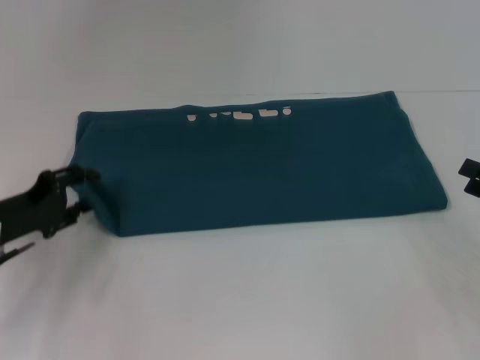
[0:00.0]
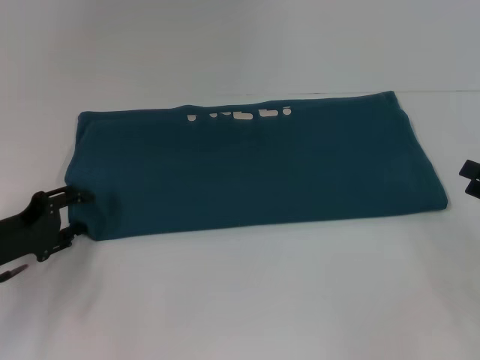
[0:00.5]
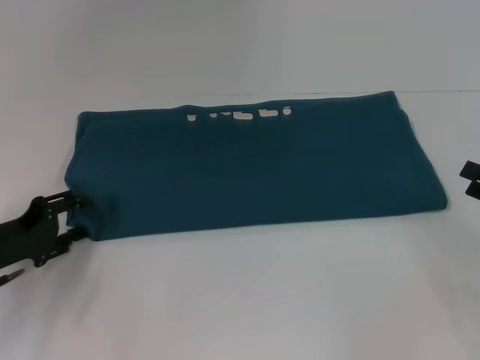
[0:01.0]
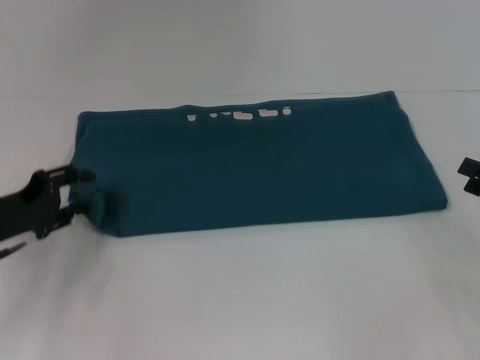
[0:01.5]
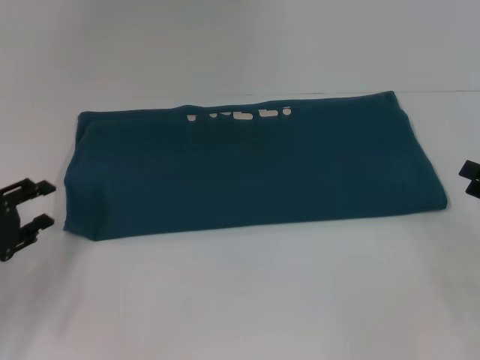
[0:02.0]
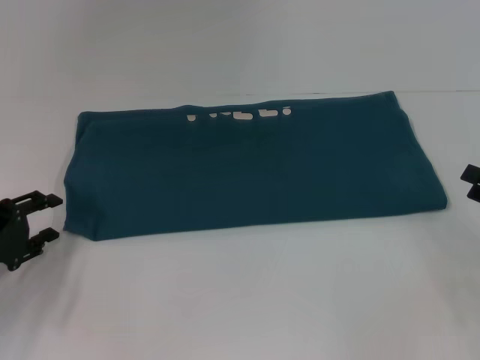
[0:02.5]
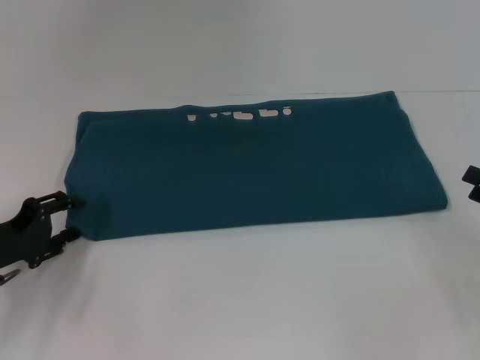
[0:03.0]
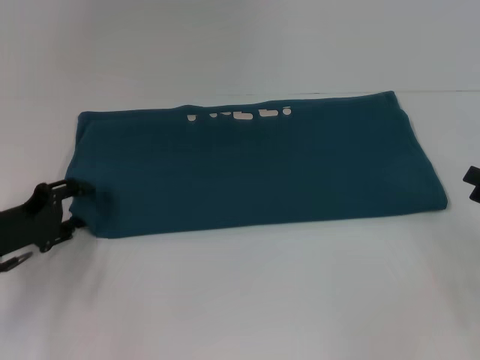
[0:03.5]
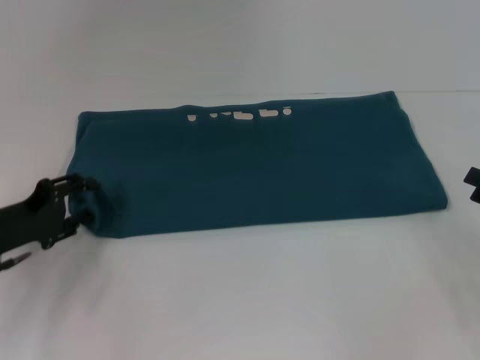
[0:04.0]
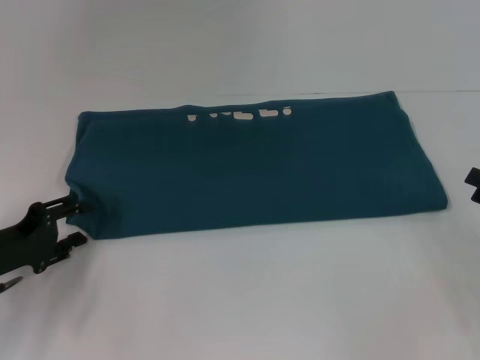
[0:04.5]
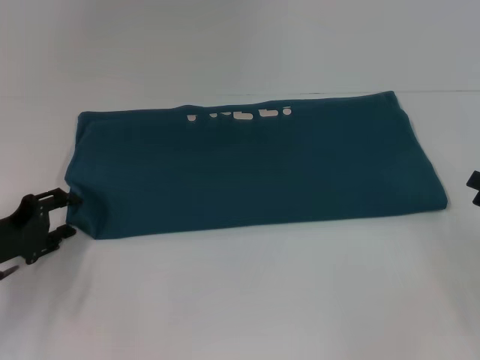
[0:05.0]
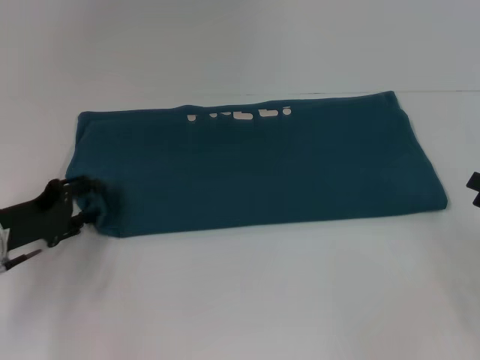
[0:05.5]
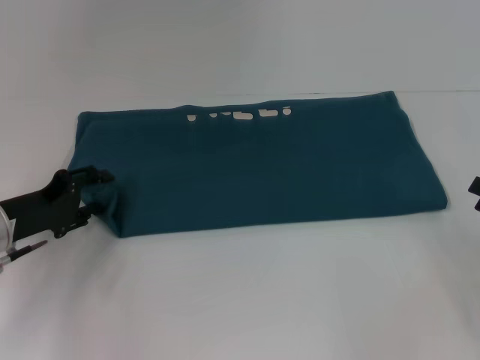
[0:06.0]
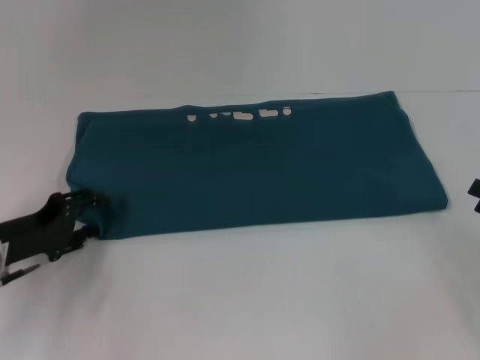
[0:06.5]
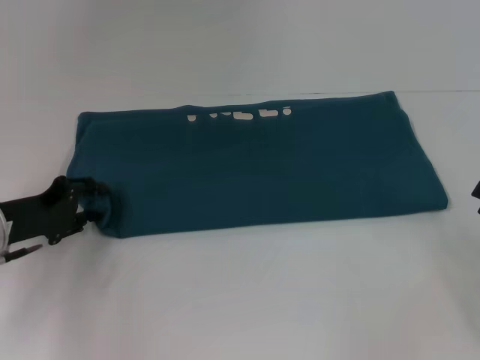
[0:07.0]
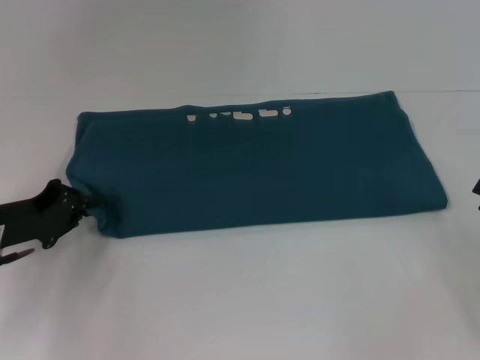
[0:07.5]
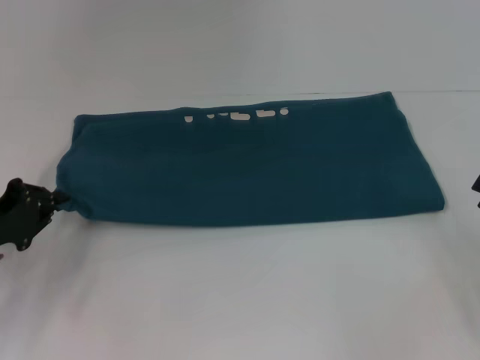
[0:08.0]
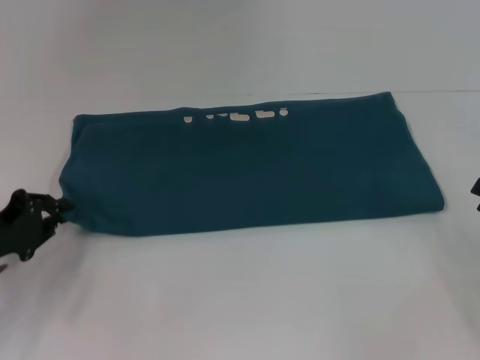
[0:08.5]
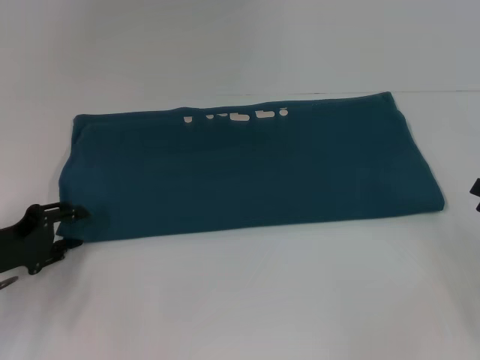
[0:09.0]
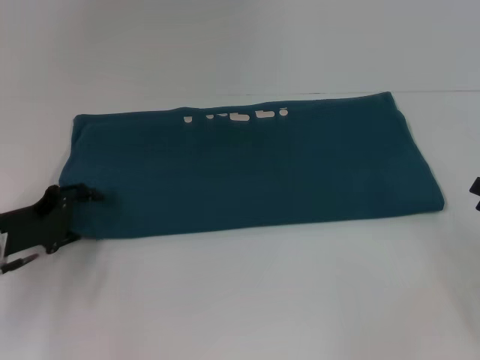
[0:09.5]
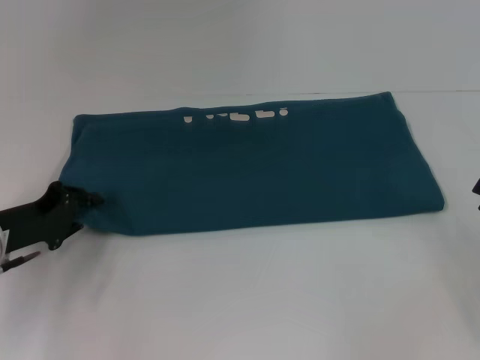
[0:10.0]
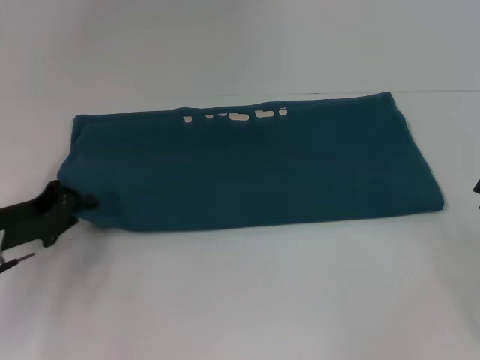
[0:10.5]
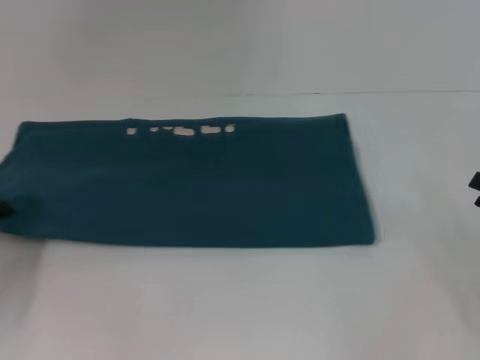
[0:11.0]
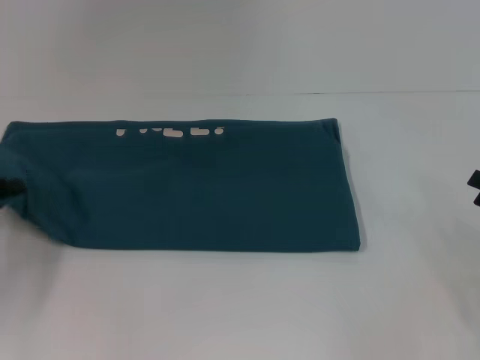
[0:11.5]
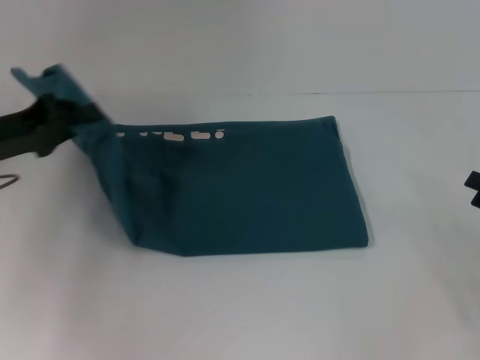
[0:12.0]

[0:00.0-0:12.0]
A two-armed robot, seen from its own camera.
0:00.0 to 0:02.0: The left gripper changes place by some 5 cm.
0:04.0 to 0:06.0: The grippers move only a little.
0:06.0 to 0:08.0: The left gripper closes.
0:08.0 to 0:10.0: The left gripper opens up.
0:10.0 to 0:12.0: The left gripper goes approximately 10 cm upward, and closes its fingers.

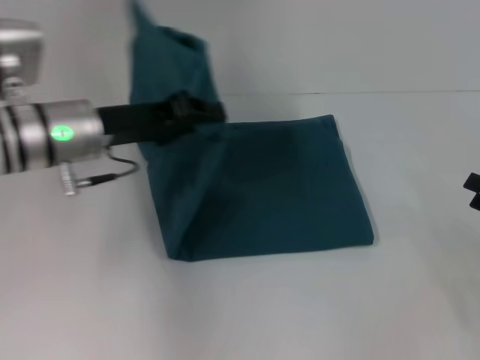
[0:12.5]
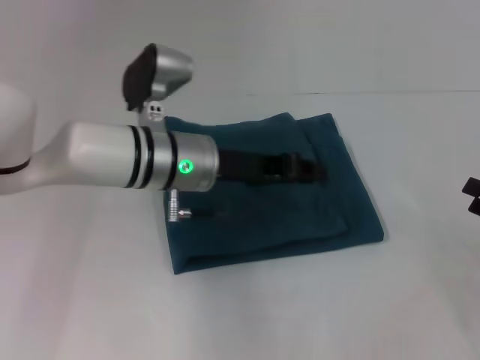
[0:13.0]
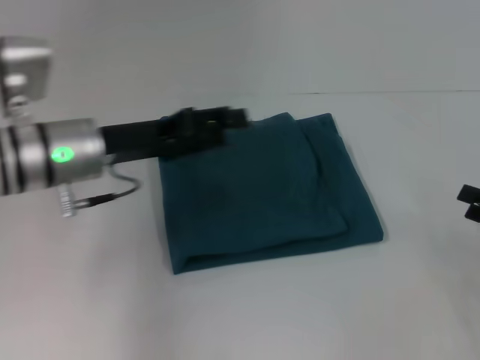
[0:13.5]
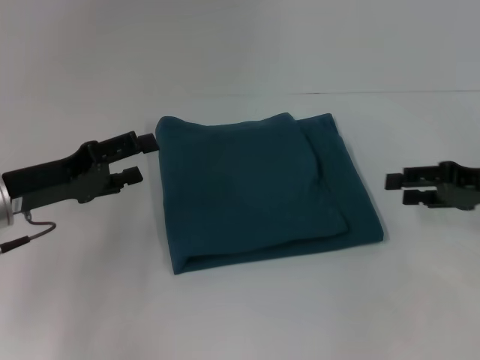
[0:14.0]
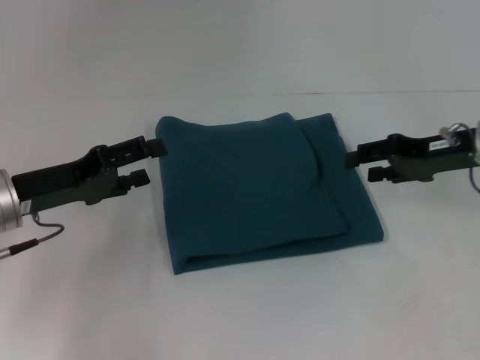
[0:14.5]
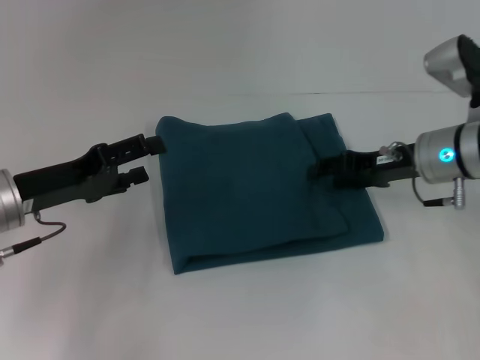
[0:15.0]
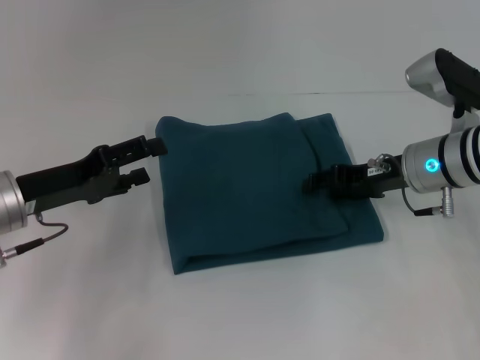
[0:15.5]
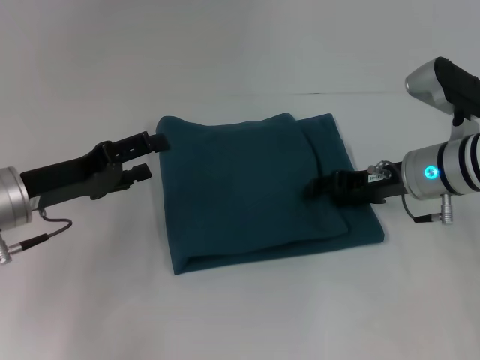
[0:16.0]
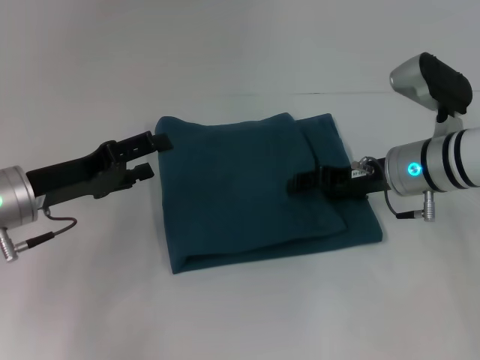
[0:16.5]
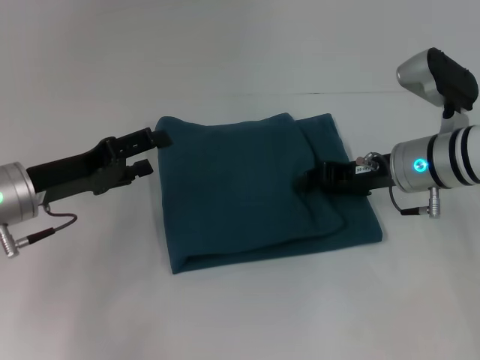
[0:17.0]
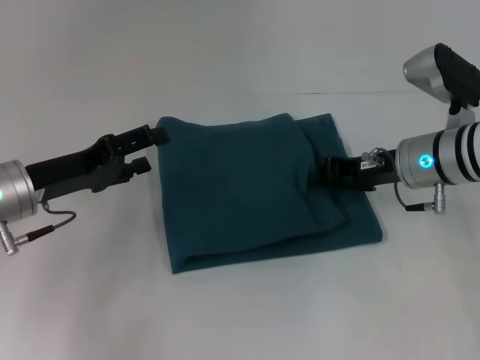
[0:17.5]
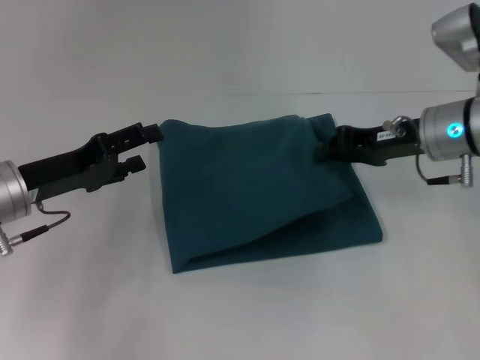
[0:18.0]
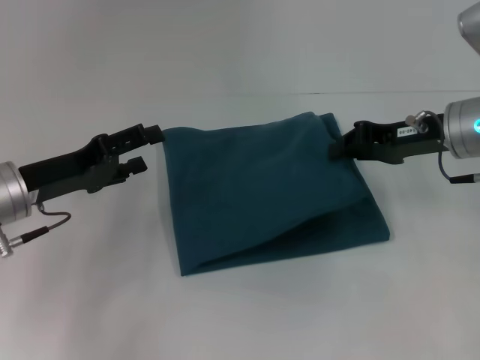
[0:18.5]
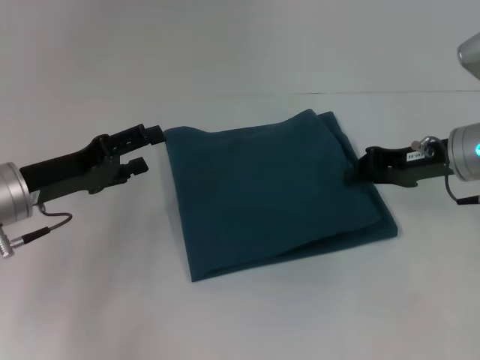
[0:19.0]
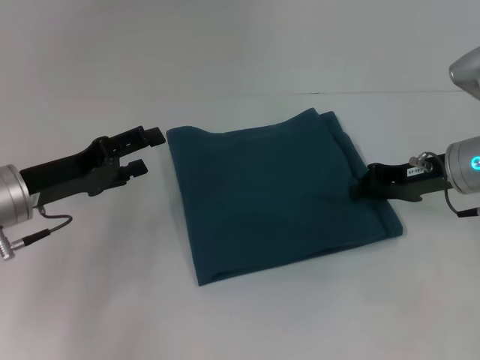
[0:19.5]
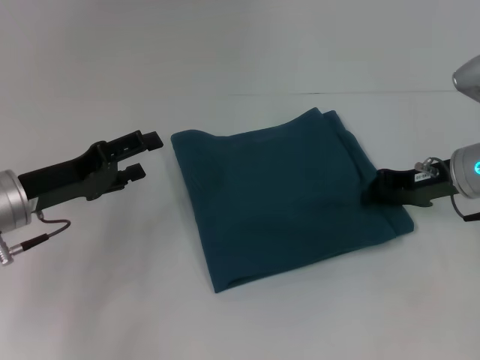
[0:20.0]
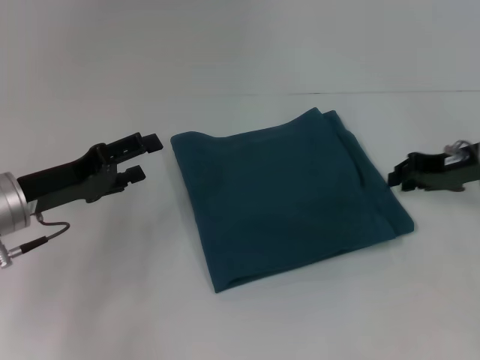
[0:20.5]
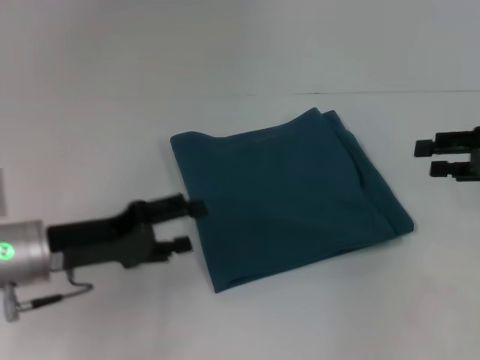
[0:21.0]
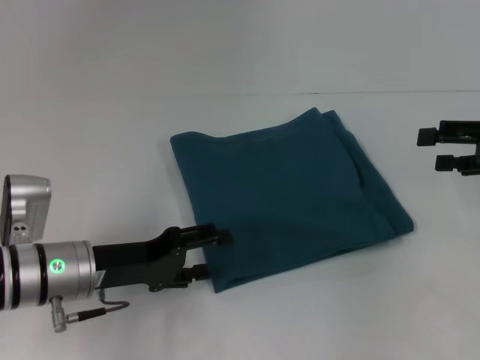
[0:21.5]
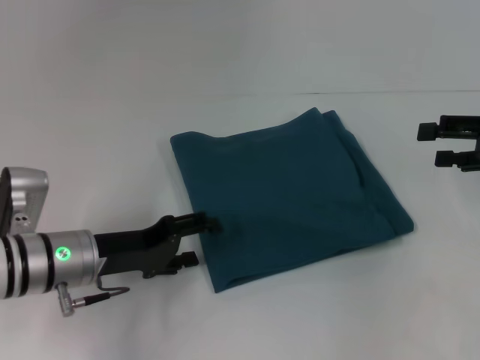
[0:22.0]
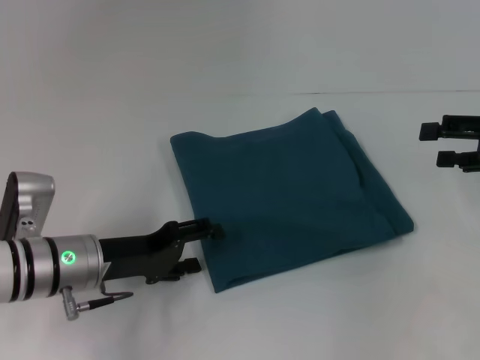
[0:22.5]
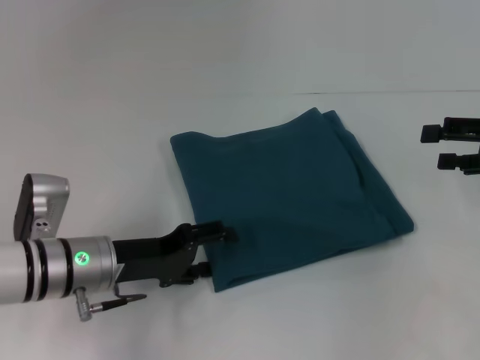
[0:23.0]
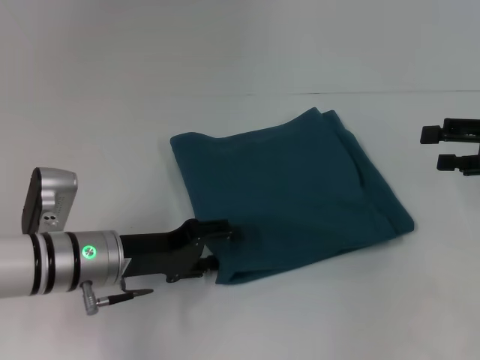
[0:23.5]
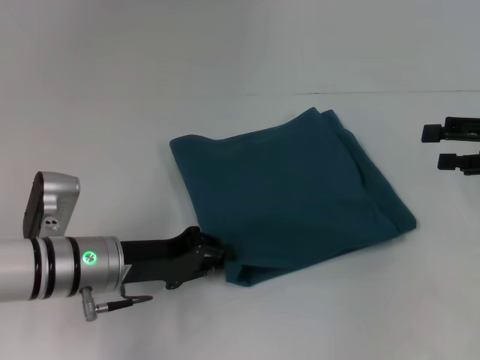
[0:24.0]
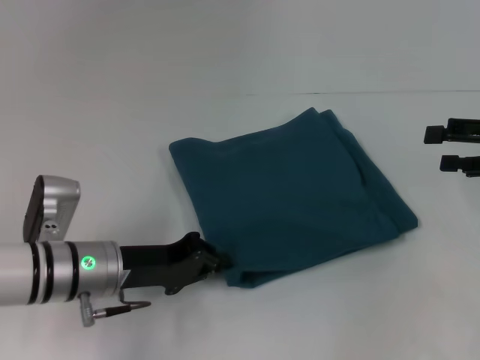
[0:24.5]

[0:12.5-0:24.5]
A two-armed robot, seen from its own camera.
0:12.5 to 0:14.5: The left gripper shifts roughly 10 cm to the left and backward, and opens, while the right gripper shifts some 20 cm forward, to the left and upward.
0:14.5 to 0:16.5: The right gripper goes approximately 10 cm to the left.
0:16.5 to 0:18.5: The right gripper moves upward, roughly 5 cm, and closes its fingers.
0:18.5 to 0:20.5: The right gripper ends up about 5 cm from where it was.
0:20.5 to 0:22.5: Both grippers move to the right, approximately 5 cm. The right gripper opens up.
0:22.5 to 0:24.5: The left gripper closes up.

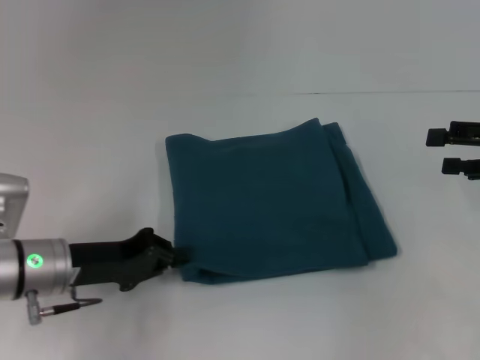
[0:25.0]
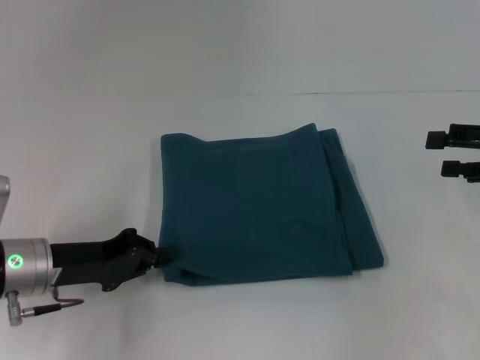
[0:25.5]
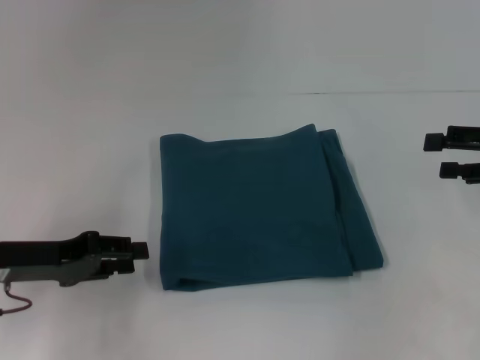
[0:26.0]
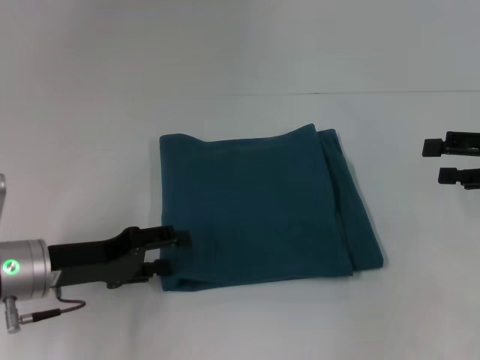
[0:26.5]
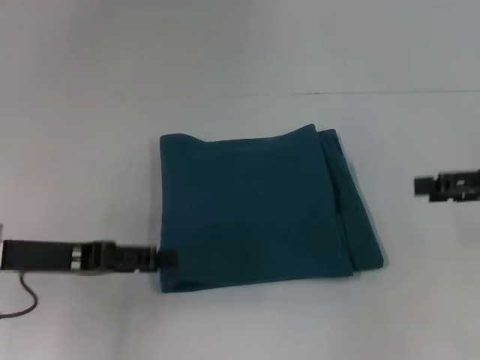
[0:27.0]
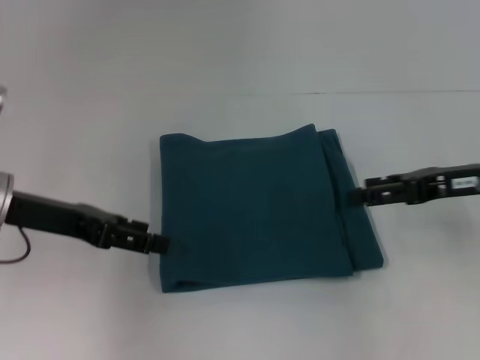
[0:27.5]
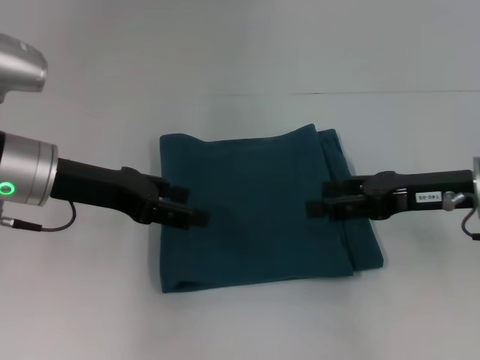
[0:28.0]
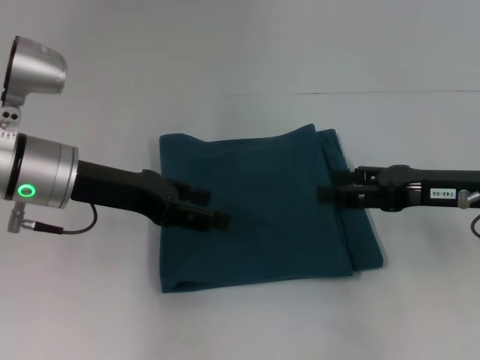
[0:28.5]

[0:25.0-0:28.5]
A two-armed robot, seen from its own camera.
0:25.0 to 0:27.0: The left gripper is displaced upward by some 5 cm, and opens.
0:27.0 to 0:28.5: The left gripper moves forward and to the right, about 10 cm; the right gripper is displaced to the left by about 10 cm.
